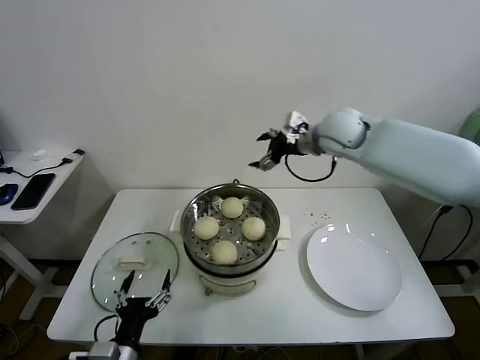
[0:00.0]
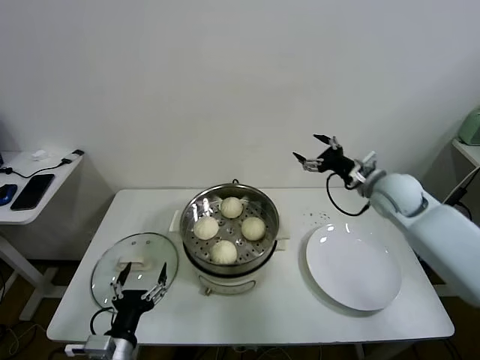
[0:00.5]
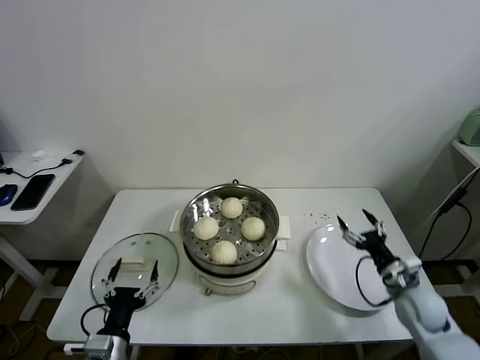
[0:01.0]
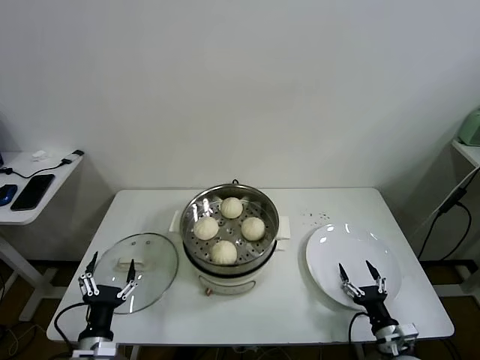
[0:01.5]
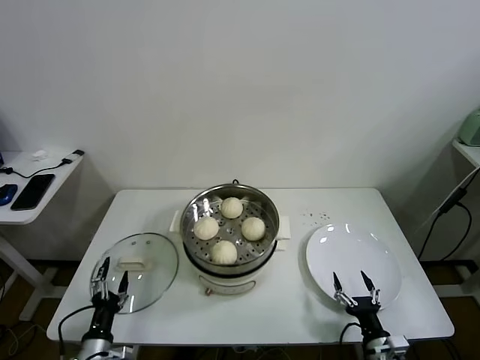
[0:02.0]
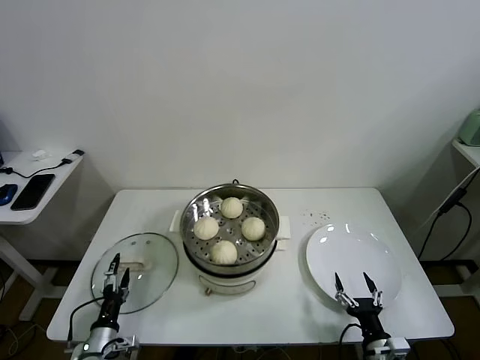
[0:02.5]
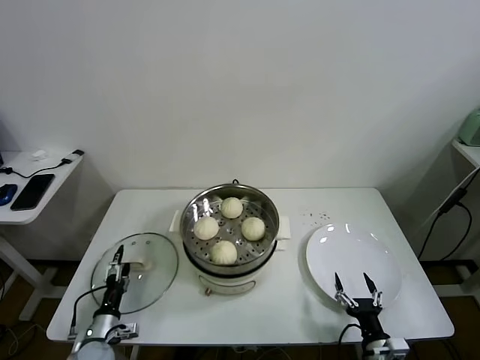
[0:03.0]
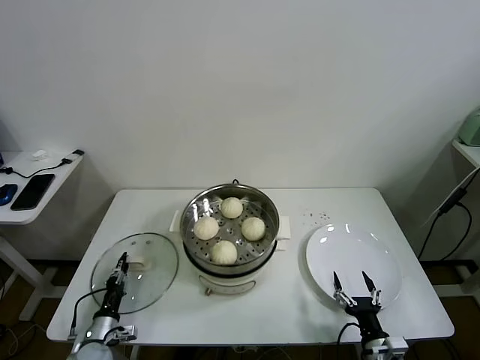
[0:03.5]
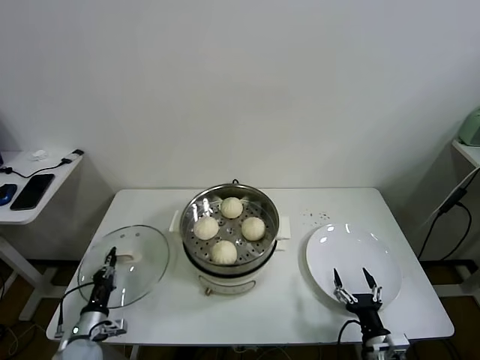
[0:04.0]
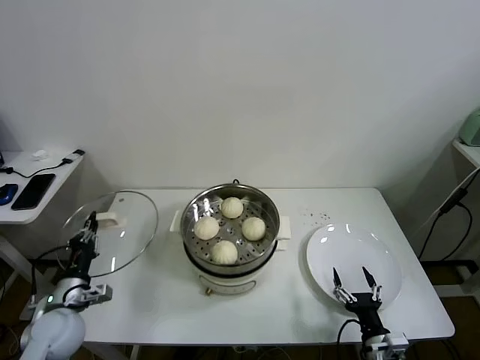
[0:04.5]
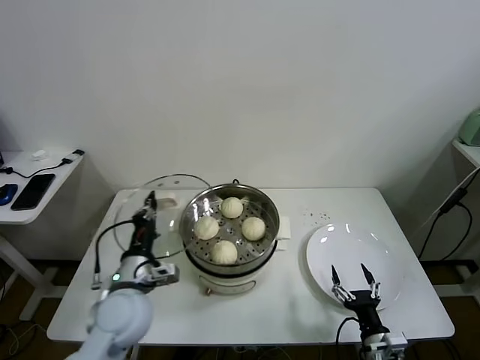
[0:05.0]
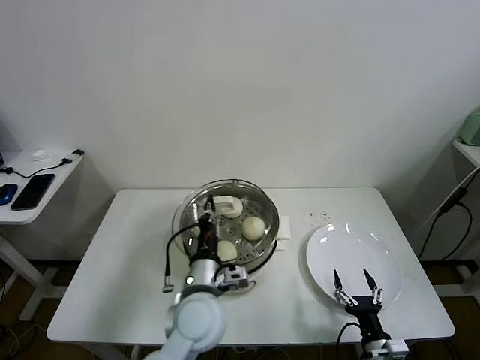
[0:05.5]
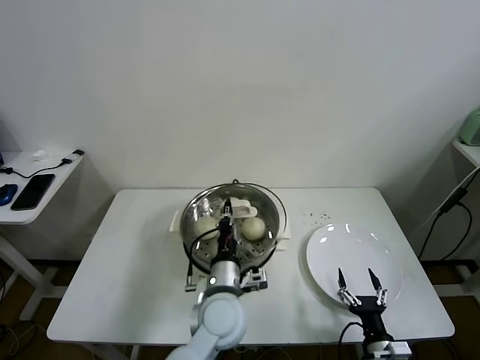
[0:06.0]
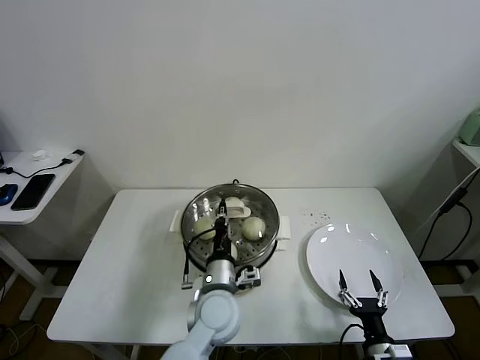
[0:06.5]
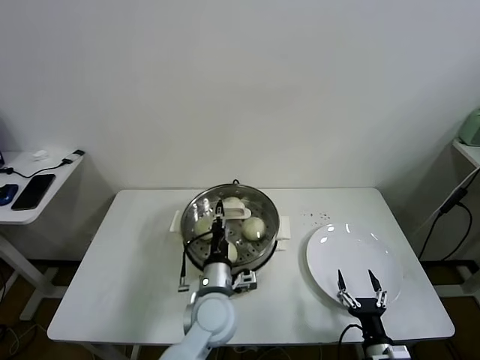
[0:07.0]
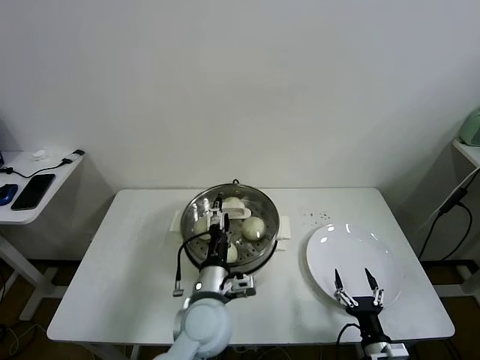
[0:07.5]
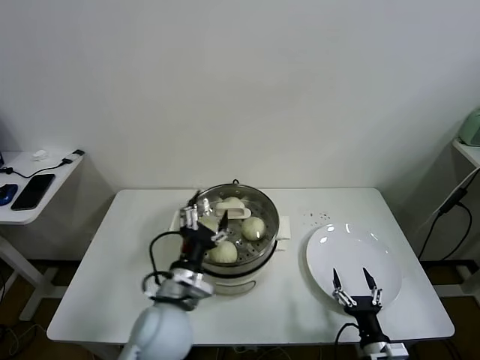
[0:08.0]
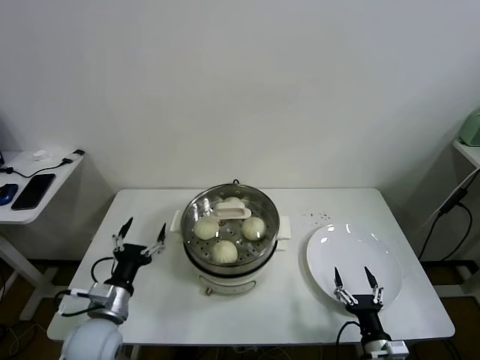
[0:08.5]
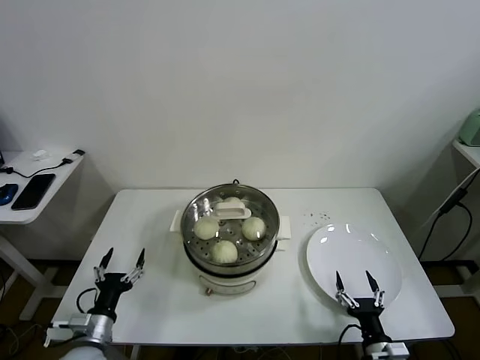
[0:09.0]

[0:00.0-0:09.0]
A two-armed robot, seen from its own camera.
Task of the whole recording: take steamed baozi put them in steamer.
Step, 0:00.0 to 0:03.5: Grasp the pot lid with left gripper.
Step, 0:04.0 to 0:07.0: Place the pot lid on the steamer with left gripper.
0:00.0 to 0:02.0: The left gripper moves downward and to the left, about 15 cm. Meanwhile the right gripper moves downward and backward, approximately 60 cm.
0:02.0 to 0:04.5: The left gripper heads upward and forward, covering about 15 cm, and closes up.
0:04.5 to 0:07.0: The left gripper goes some 30 cm to the right.
0:07.0 to 0:09.0: The left gripper shifts about 30 cm to the left, and opens up.

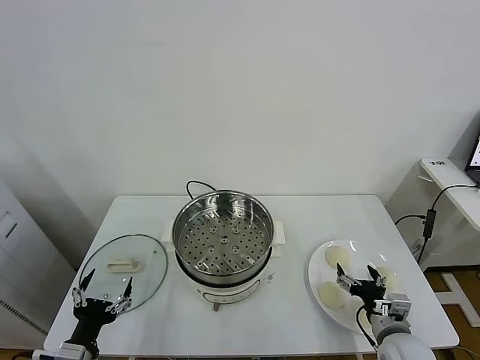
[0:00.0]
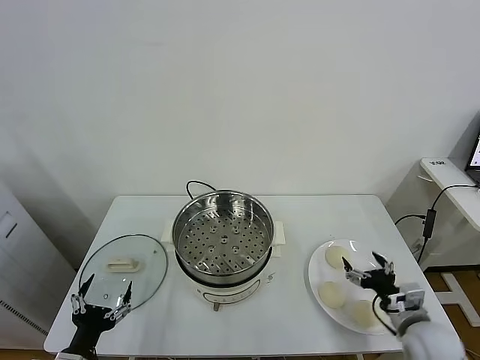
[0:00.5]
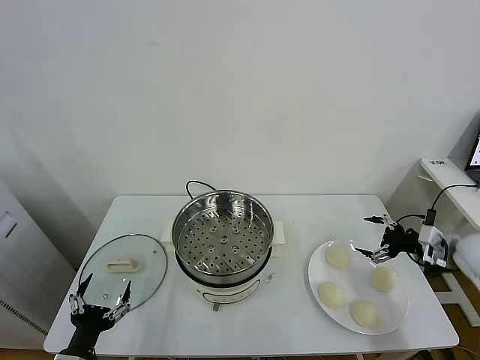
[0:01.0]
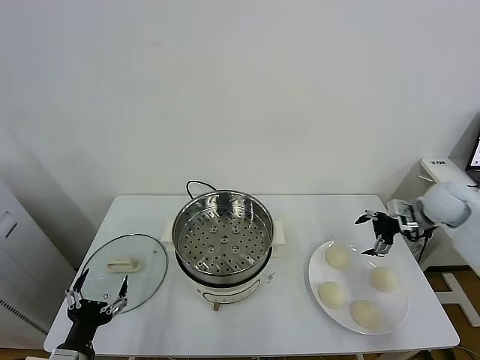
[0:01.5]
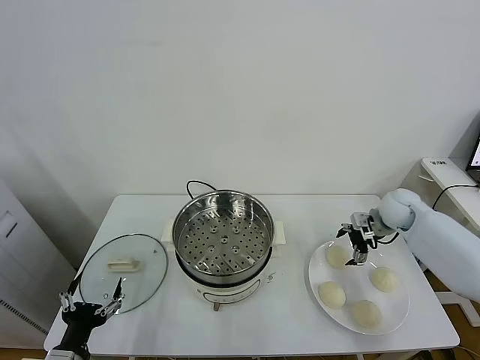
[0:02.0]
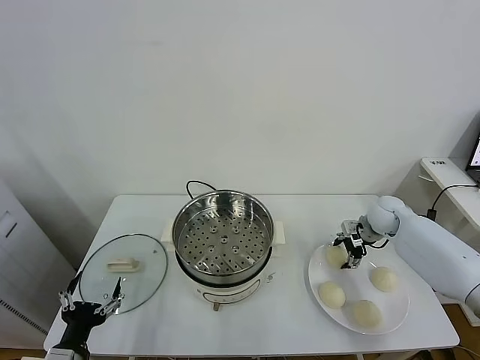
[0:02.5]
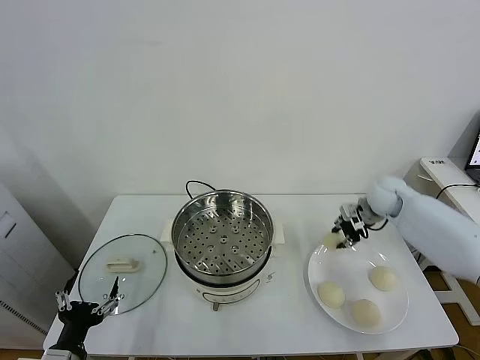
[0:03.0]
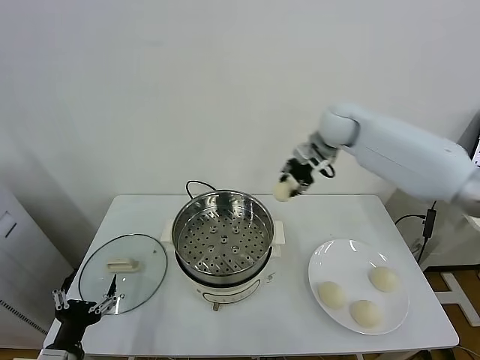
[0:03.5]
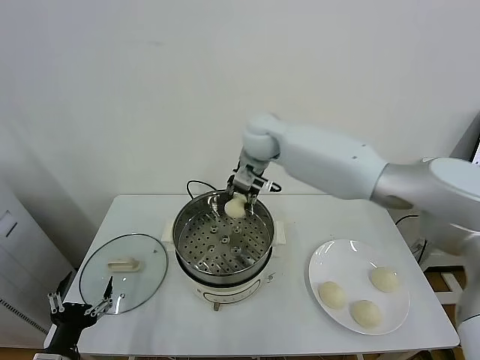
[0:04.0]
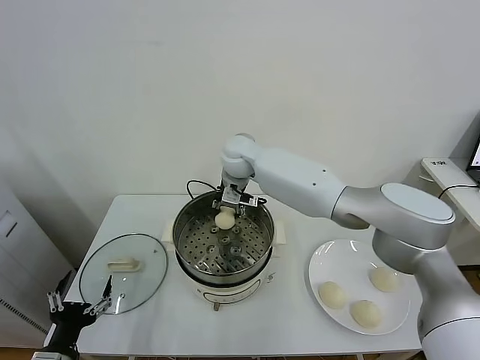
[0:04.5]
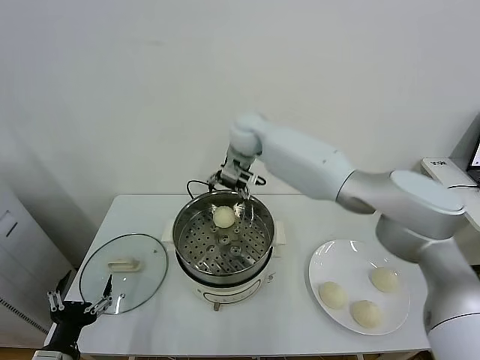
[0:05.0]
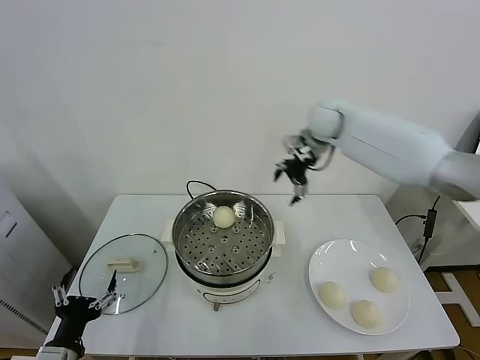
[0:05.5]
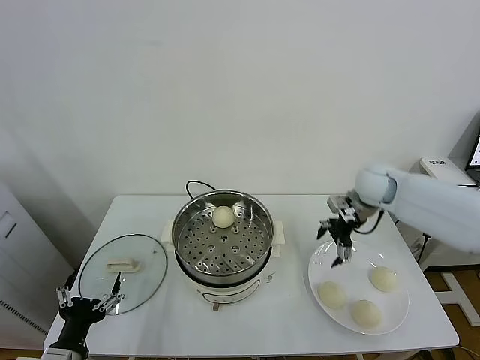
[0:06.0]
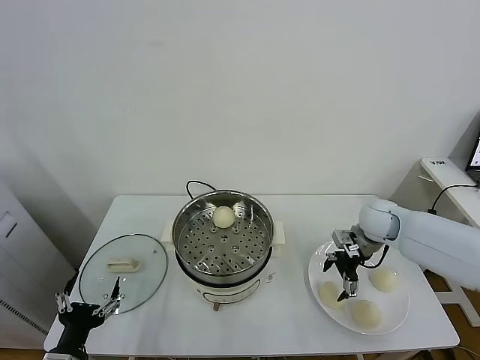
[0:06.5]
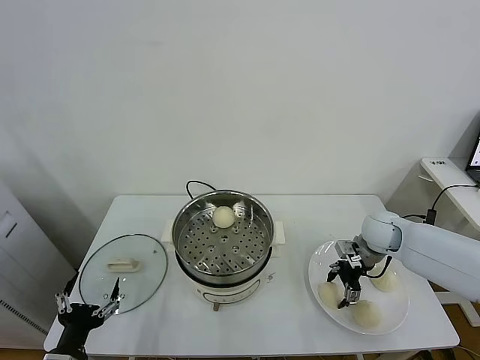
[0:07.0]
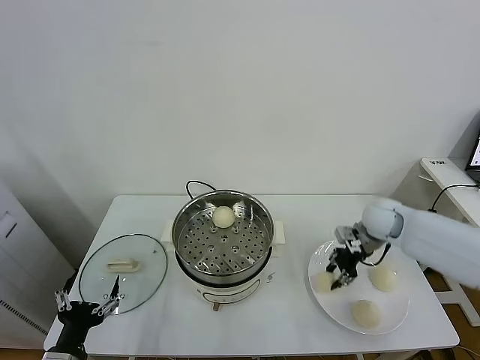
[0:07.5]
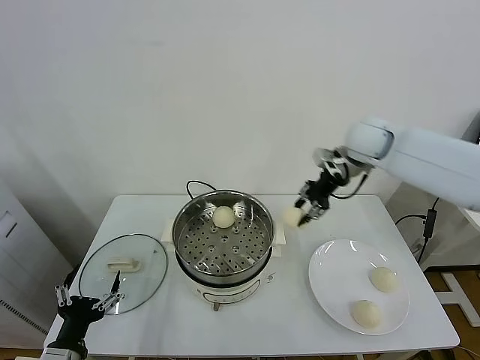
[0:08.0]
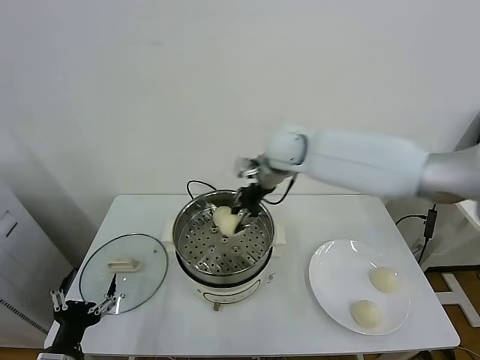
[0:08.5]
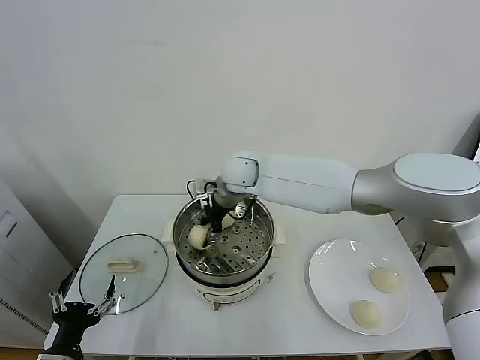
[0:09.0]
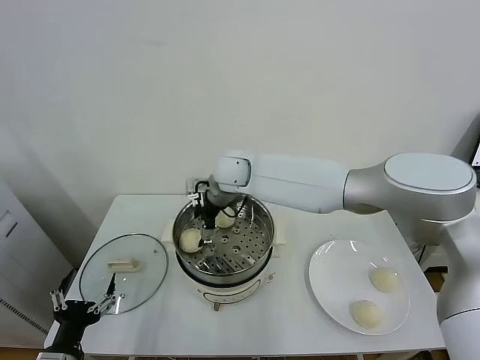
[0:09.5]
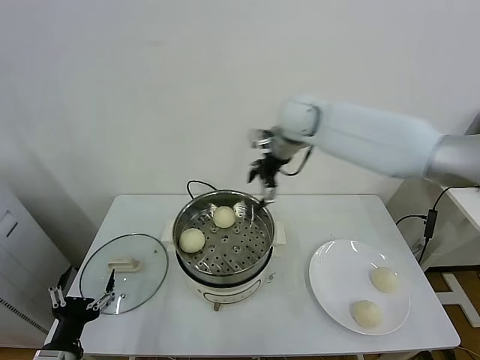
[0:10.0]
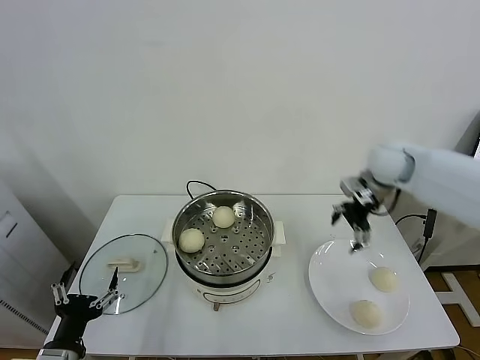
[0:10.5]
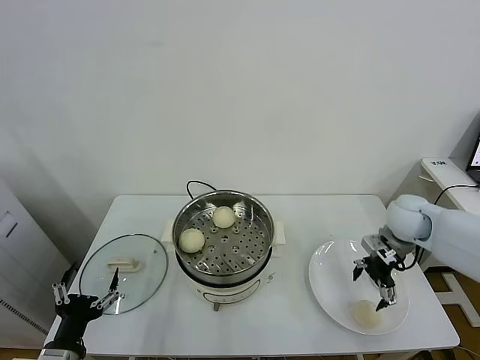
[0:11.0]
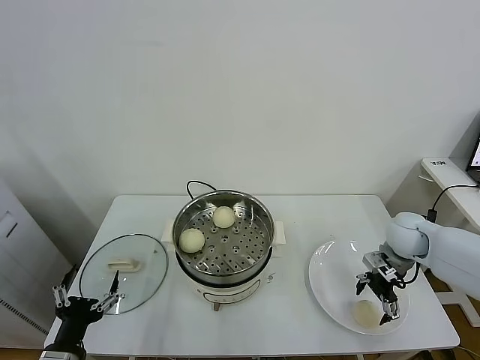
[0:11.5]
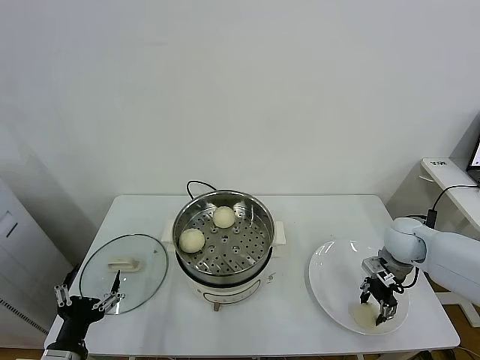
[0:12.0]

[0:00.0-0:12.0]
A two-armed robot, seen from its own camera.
Task of the whole recording: take steamed baozi put them in steamer.
Step, 0:00.0 to 0:02.5: Grasp the baozi in the plate with right gripper.
Step, 0:03.0 to 0:04.5: Place the baozi on the steamer with right gripper.
Step, 0:05.0 to 0:07.0: Grasp the baozi in the plate with right gripper.
Step, 0:07.5 to 0:09.0: Place the baozi on the steamer with right gripper.
Step, 0:10.0 to 0:11.5: Grasp the baozi in the plate with right gripper.
0:02.0 to 0:04.0: The right gripper heads to the left and upward, covering approximately 40 cm, and closes up.
0:04.0 to 0:06.0: The right gripper goes roughly 30 cm to the right, and opens up.
0:06.0 to 0:08.0: The right gripper travels upward and to the left by about 15 cm, and closes up.
0:08.0 to 0:10.0: The right gripper heads to the left, covering about 10 cm, and opens.
0:10.0 to 0:12.0: The right gripper moves downward, to the right and backward, about 35 cm, and closes its fingers.

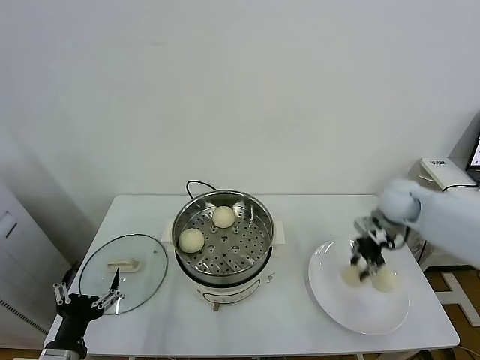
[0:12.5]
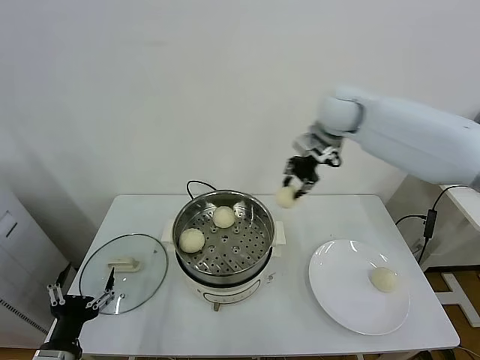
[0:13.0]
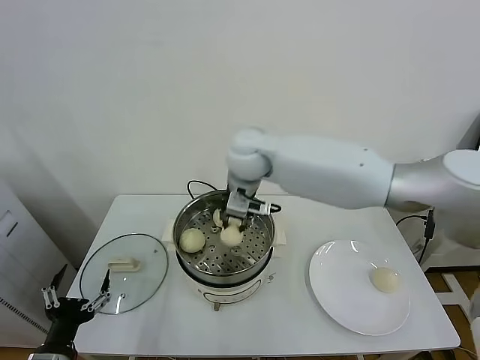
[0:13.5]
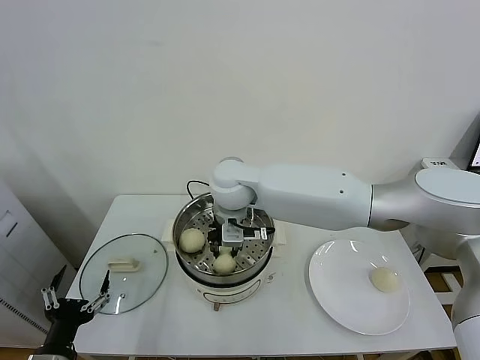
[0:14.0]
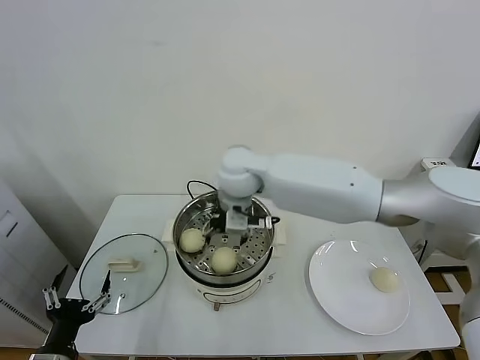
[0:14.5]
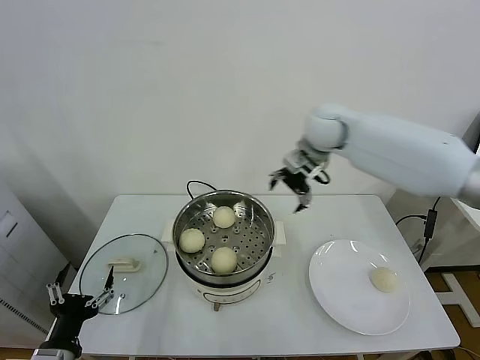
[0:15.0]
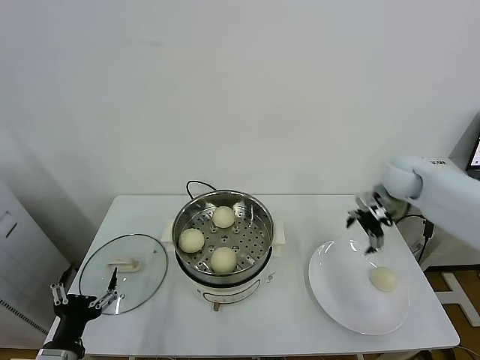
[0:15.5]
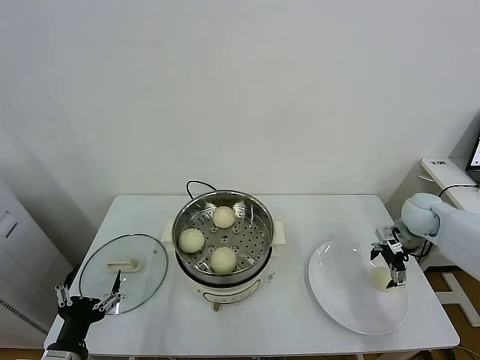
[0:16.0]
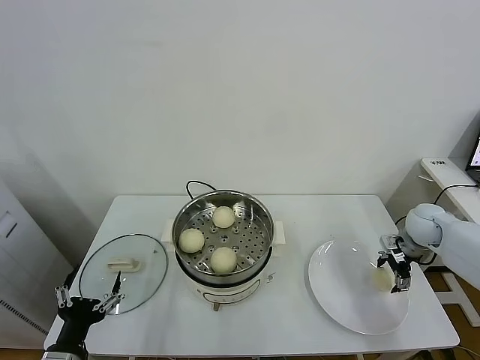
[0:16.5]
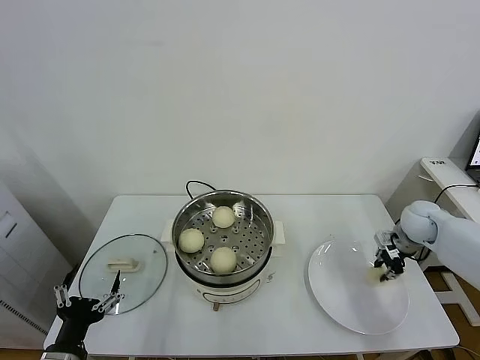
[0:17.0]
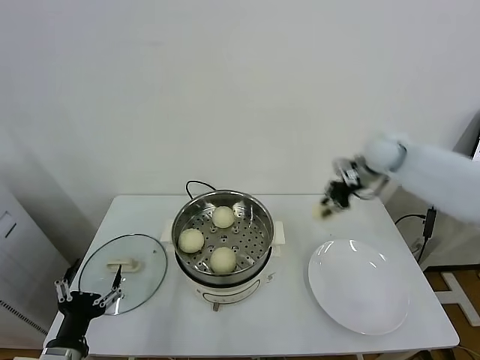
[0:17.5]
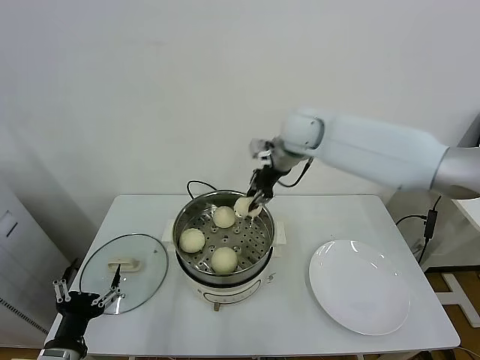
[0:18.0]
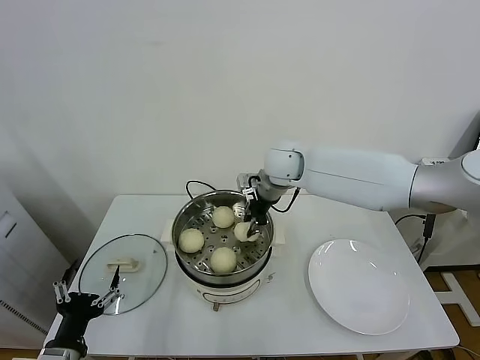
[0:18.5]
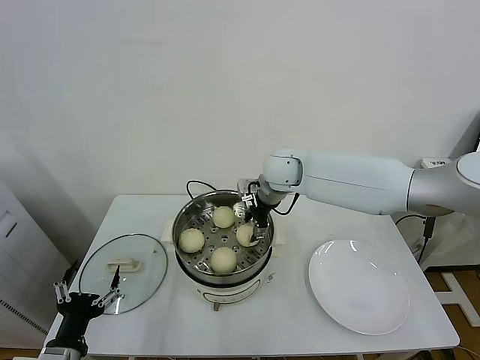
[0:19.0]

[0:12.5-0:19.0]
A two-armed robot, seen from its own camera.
Task of the whole recording: take steamed baozi put them in steamer.
Step, 0:12.5 to 0:14.5: Place the baozi on the steamer with right gripper.
Step, 0:15.0 to 0:16.5: Grasp the baozi in the plate with right gripper.
0:12.5 to 0:14.5: The right gripper heads to the left, covering about 35 cm, and opens its fingers.
0:14.5 to 0:17.0: The right gripper travels to the right by approximately 40 cm, and closes its fingers.
0:17.0 to 0:19.0: The right gripper heads to the left, covering roughly 35 cm, and opens its fingers.
